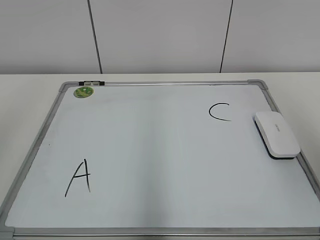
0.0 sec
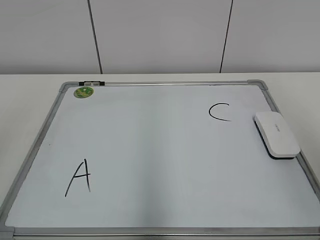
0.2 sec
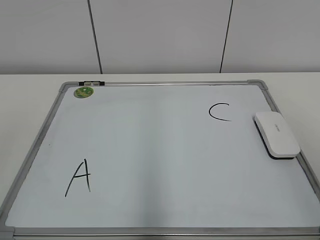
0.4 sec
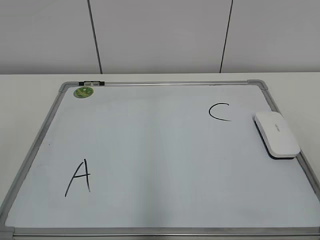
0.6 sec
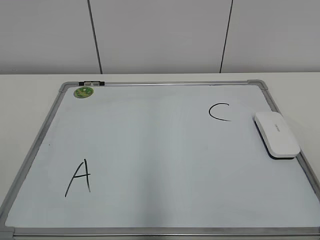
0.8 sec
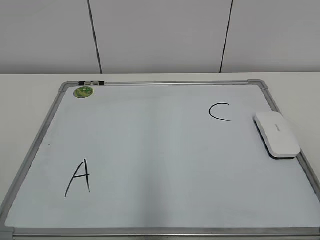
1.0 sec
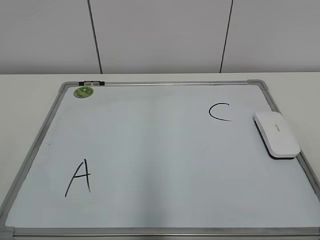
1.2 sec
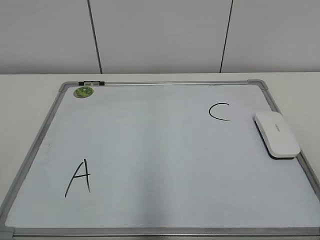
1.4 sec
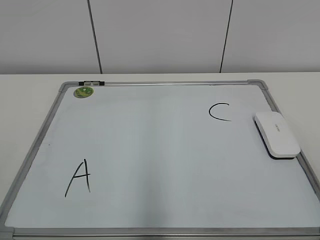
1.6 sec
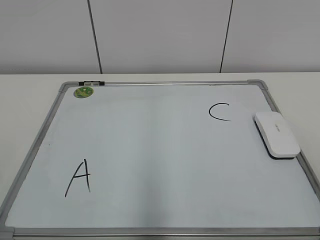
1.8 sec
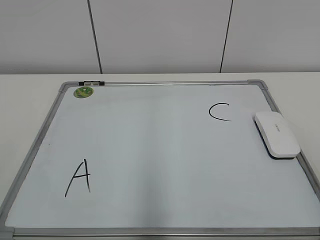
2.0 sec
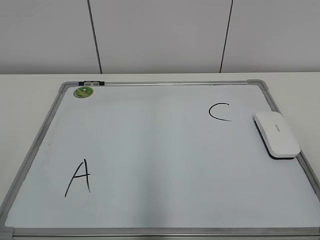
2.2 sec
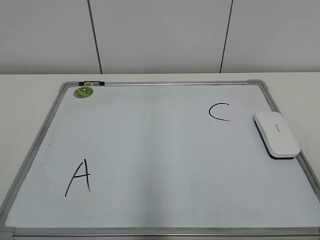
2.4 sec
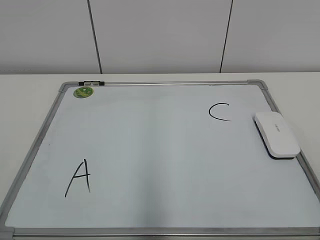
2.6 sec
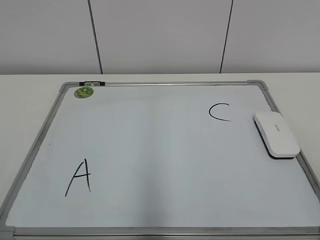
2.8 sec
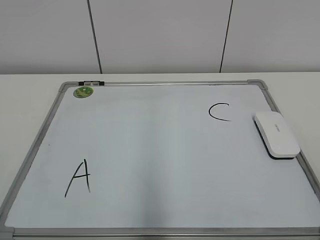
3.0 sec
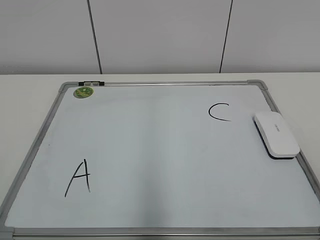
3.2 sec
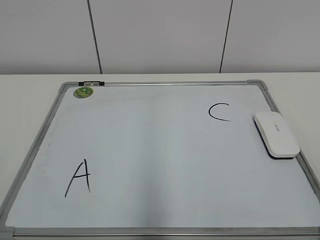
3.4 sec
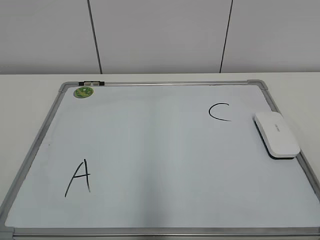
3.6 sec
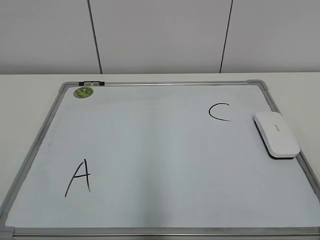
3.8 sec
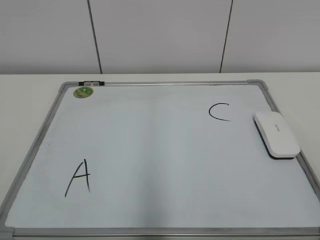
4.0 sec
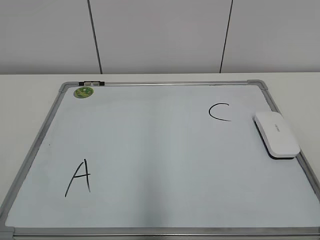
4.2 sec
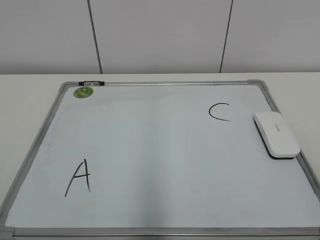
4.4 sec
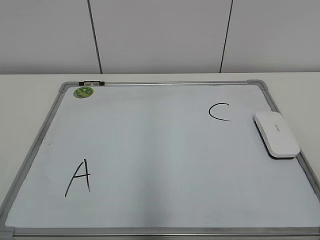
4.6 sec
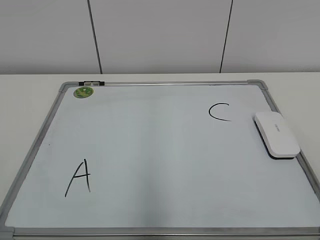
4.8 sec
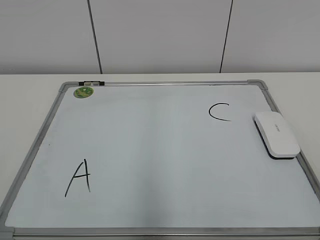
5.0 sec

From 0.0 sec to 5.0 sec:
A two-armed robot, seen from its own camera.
Task of the whole recording: pick up the eraser on the blackboard and erase the letter "B".
From 3.4 sec to 5.0 sec: Neither gripper changes place.

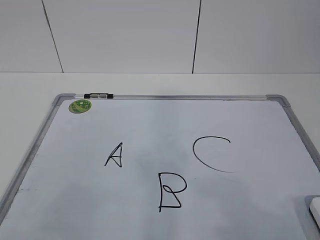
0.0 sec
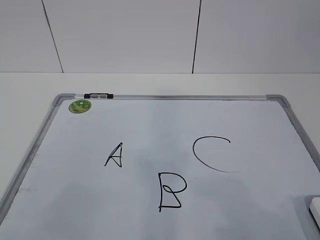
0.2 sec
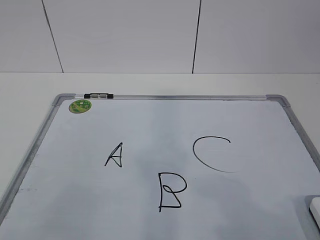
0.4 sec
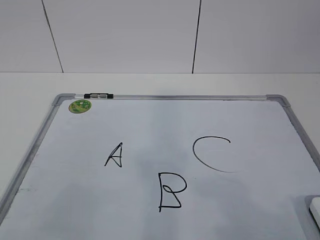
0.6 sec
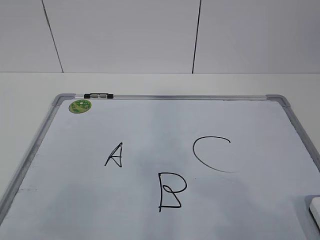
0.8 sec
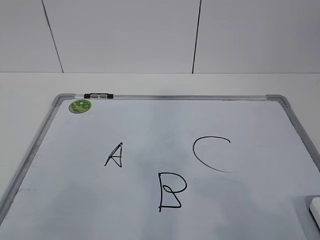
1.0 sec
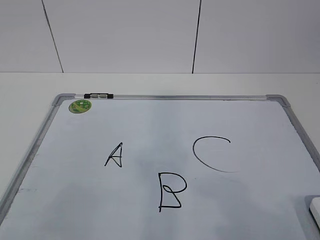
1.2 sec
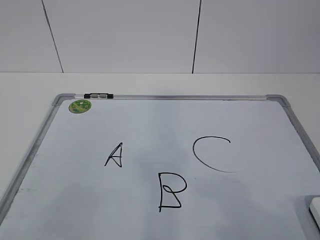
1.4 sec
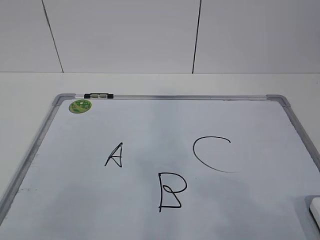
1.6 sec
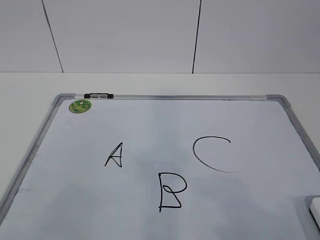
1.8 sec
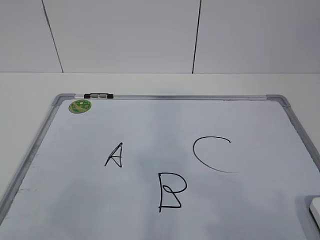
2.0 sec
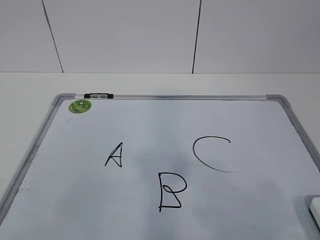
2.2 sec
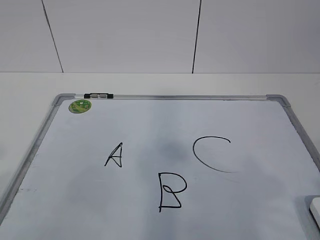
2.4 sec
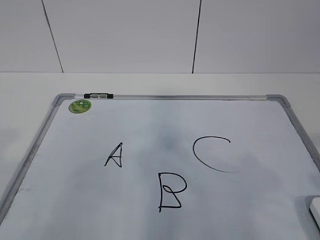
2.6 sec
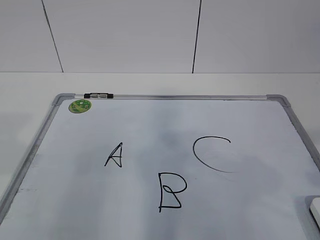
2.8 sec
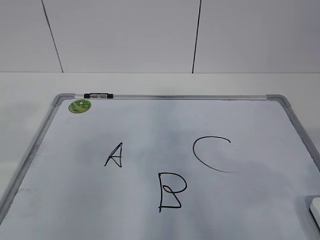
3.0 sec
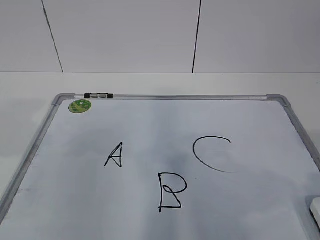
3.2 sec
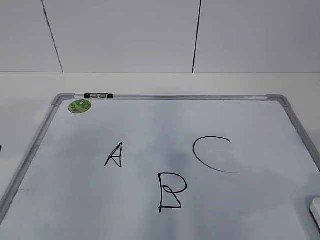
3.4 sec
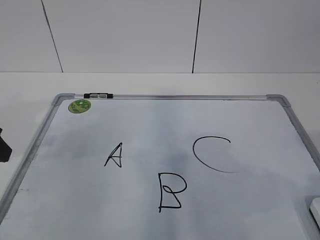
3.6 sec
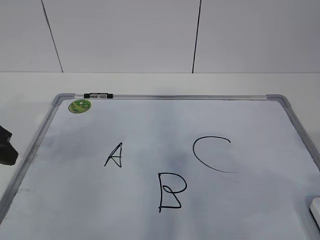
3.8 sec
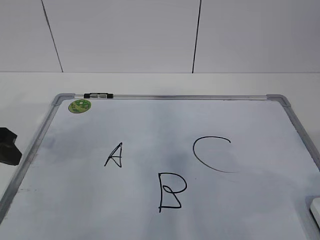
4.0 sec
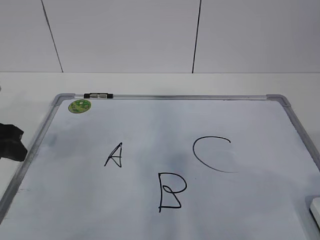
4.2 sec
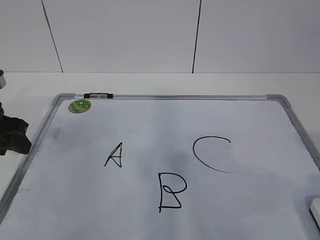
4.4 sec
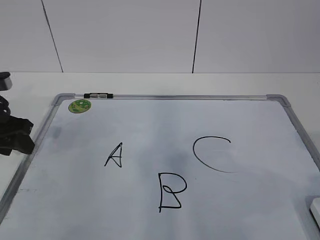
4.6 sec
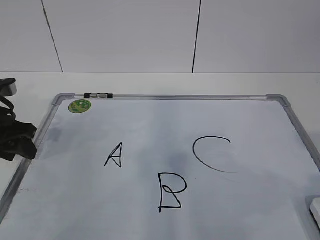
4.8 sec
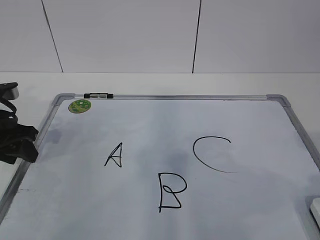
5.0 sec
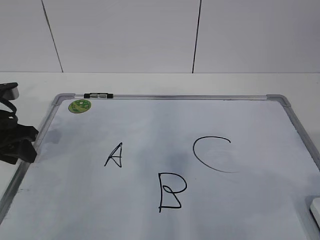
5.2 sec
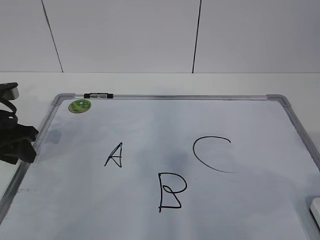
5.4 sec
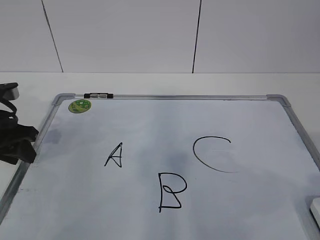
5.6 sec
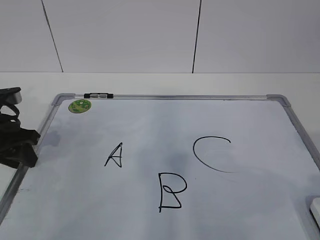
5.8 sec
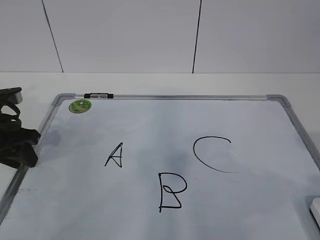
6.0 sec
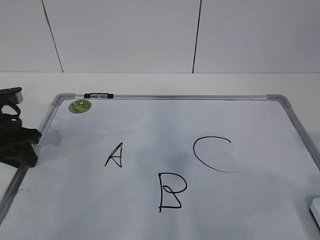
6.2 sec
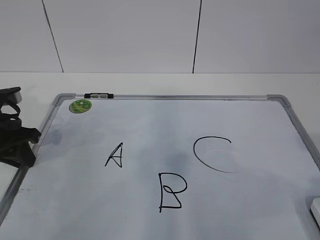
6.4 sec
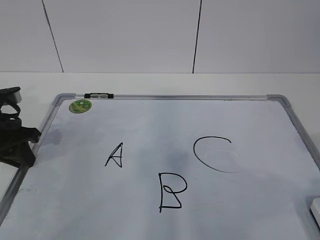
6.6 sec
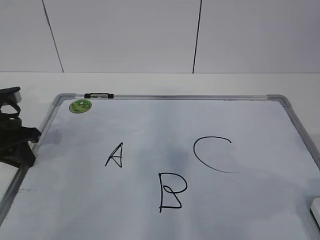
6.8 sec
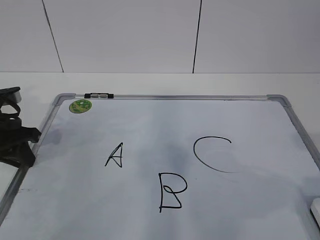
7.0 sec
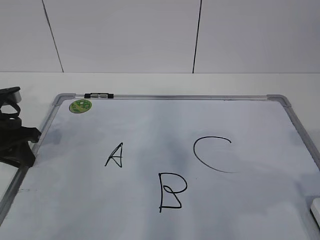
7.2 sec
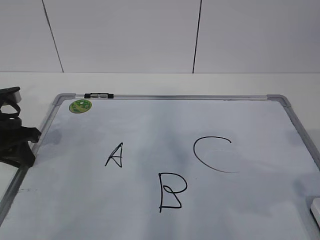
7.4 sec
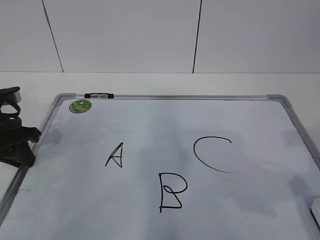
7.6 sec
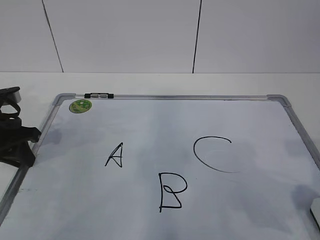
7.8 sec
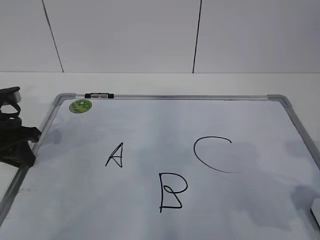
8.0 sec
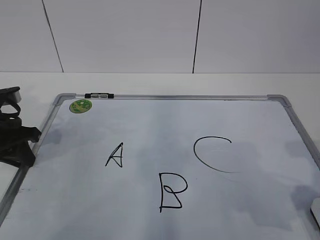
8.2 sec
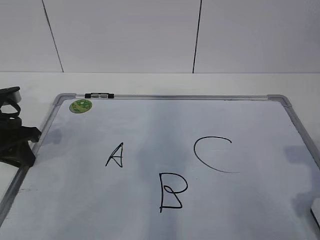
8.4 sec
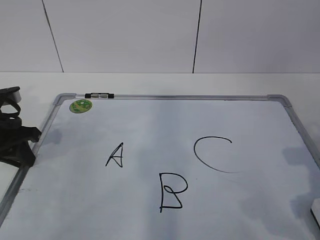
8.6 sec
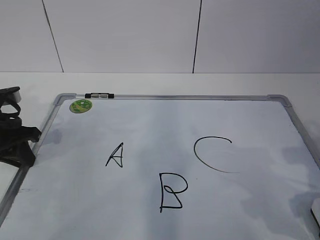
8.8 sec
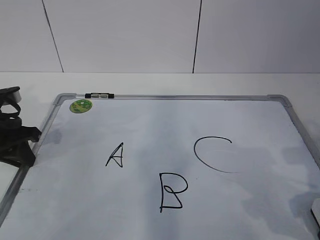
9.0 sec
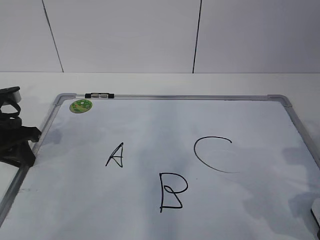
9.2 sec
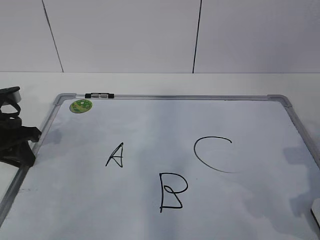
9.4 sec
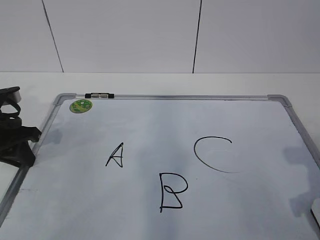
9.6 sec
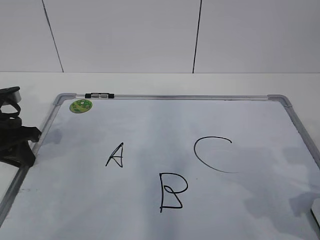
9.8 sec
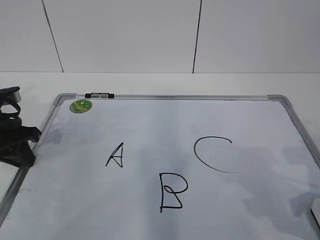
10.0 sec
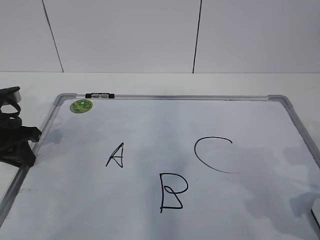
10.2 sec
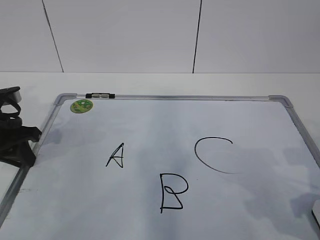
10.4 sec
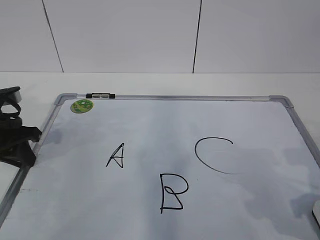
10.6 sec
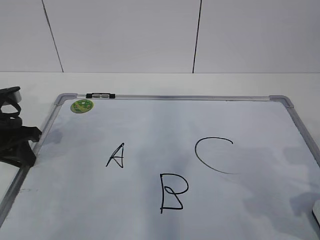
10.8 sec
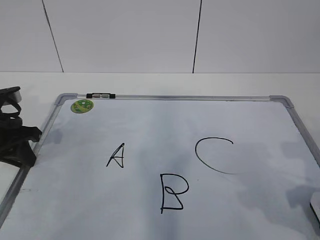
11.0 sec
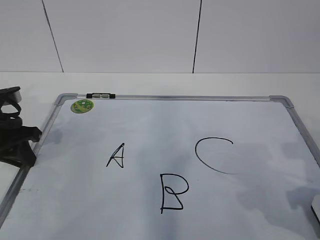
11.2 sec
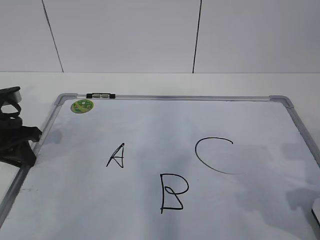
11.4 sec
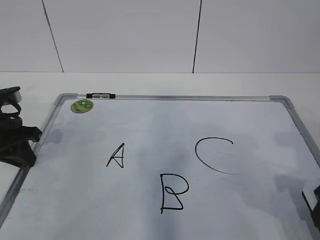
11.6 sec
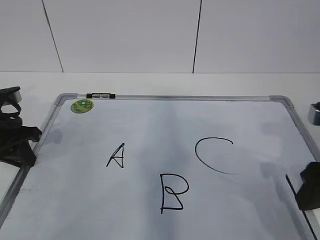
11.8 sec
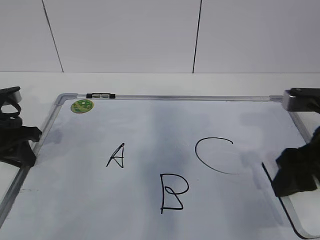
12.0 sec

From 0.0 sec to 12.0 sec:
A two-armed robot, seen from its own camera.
Task of the whole recording: pick up the eraser on the blackboard and erase the letter "B".
Step, from 0.0 sec to 5.2 sec: Hold the drawing board steady with your left hand.
Step, from 5.4 sec to 8.8 sec: Grab the eraser with your right hand.
From 1.6 sec to 3.0 sec: The right gripper is displaced forward by some 5 cm, while the left gripper travels forward by roughly 15 cm.
From 3.0 sec to 4.4 sec: The left gripper travels forward and downward by approximately 20 cm.
From 4.4 sec to 6.0 sec: The grippers move only a little.
From 6.0 sec to 7.6 sec: The left gripper closes.
From 7.6 sec to 9.0 sec: The right gripper goes roughly 5 cm downward.
From 9.0 sec to 10.4 sec: The right gripper closes up.
From 10.4 sec to 12.0 sec: The right gripper travels upward and to the left by approximately 10 cm.

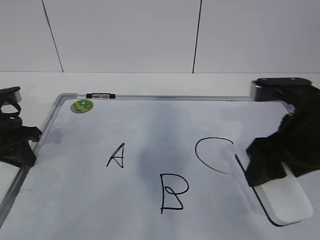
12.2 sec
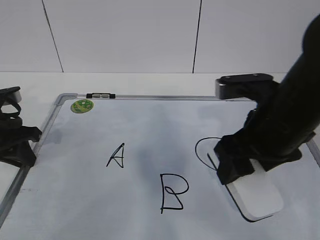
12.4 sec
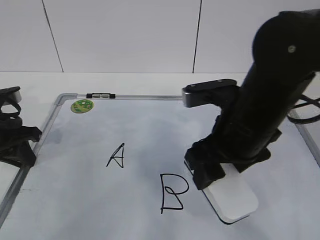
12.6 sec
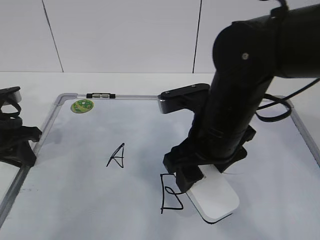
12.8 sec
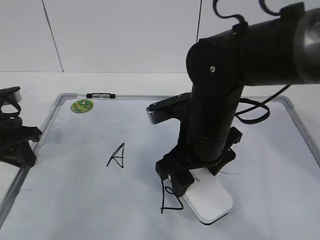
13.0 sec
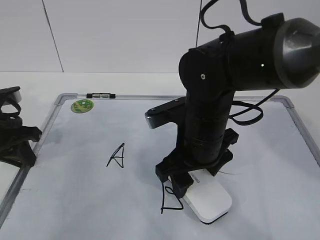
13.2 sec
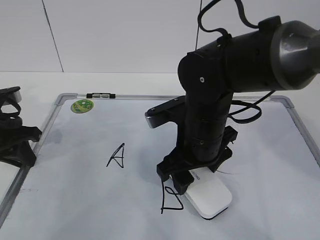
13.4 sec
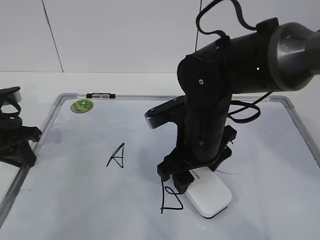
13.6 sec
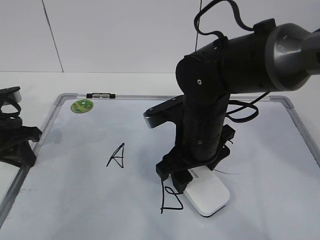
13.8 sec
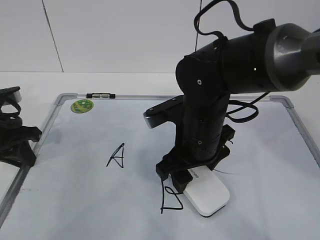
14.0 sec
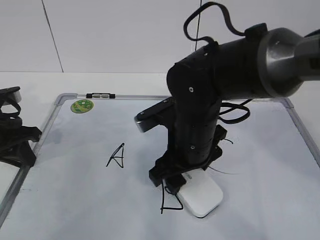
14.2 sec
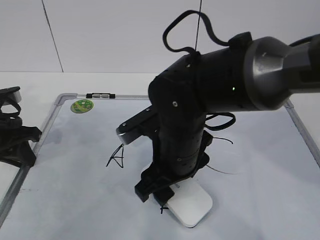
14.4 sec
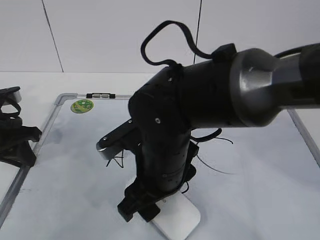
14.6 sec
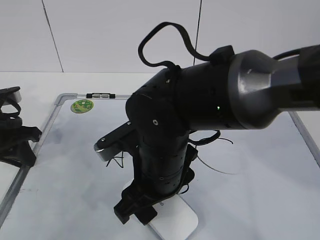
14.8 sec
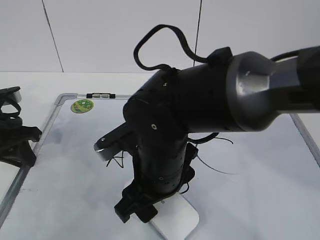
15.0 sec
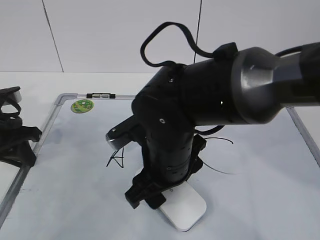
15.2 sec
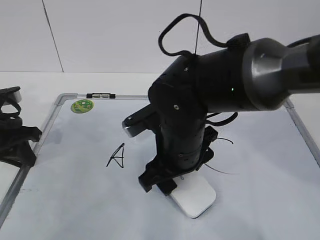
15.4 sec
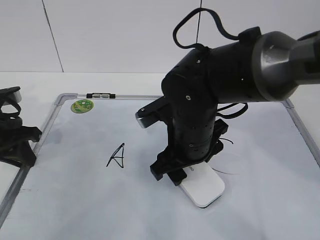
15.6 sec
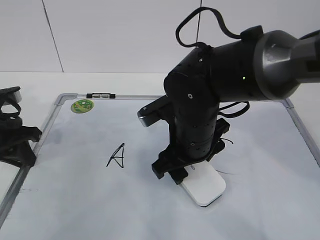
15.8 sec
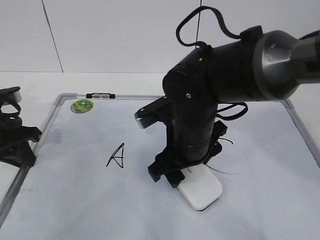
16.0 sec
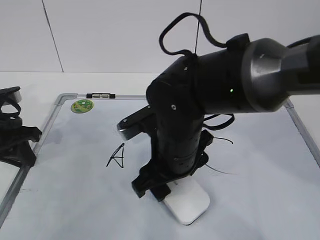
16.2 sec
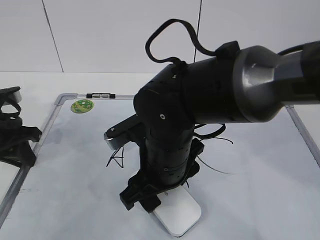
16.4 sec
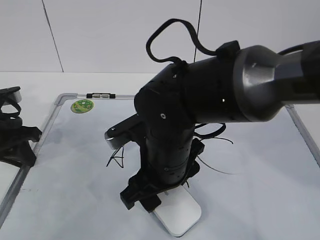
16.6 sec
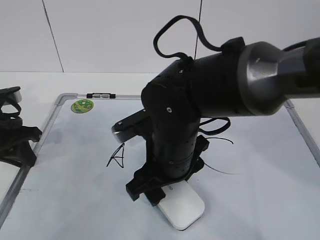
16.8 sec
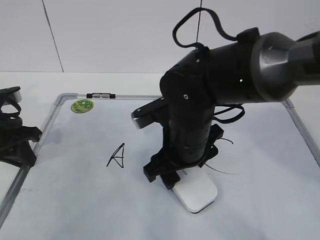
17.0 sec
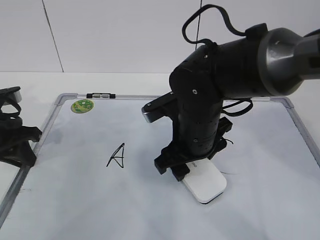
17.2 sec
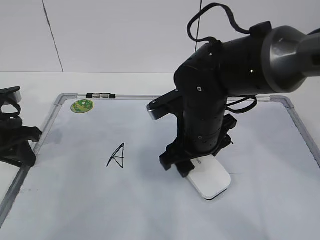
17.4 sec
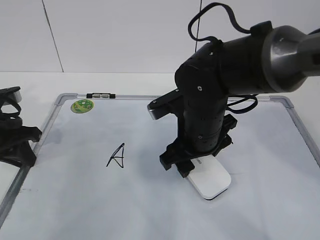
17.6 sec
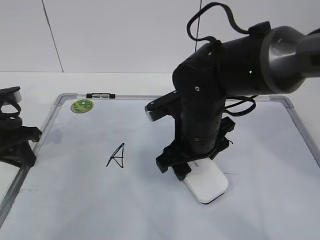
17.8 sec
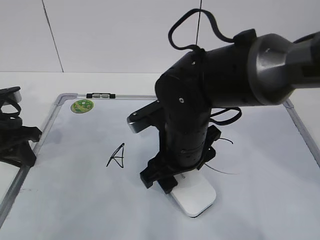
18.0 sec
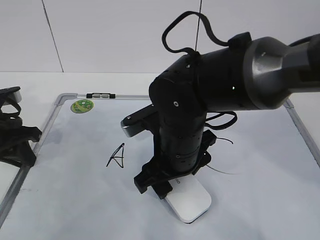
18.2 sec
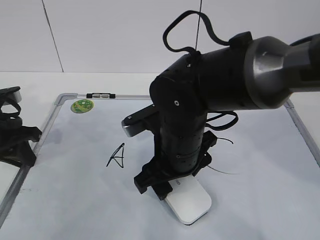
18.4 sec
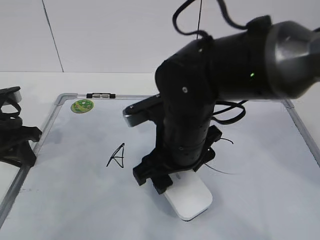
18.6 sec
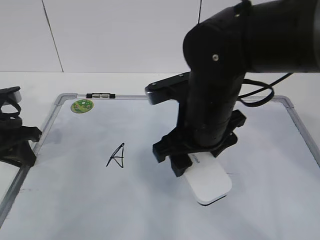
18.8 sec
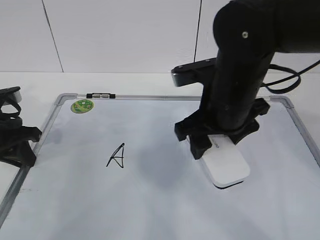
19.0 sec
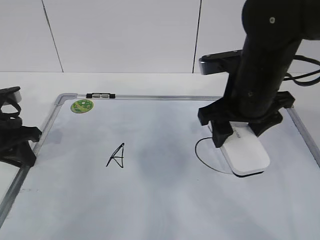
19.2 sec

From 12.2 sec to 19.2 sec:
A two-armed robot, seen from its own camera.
Task of the whole recording: pick up the eraser on the blackboard and erase the letter "B".
Step, from 12.2 sec to 15.2 sec: Erase the letter B with your right hand.
Step, from 15.4 sec to 18.6 sec: Put down the eraser with your right hand.
From 12.2 sec to 13.6 sec: The right gripper moves to the left, downward and forward, roughly 15 cm.
From 13.6 sec to 15.0 sec: The right gripper moves to the left, some 5 cm.
From 16.4 sec to 17.8 sec: The right gripper shifts by some 5 cm.
From 17.8 sec to 19.2 sec: The right gripper travels to the right and upward by about 10 cm.
